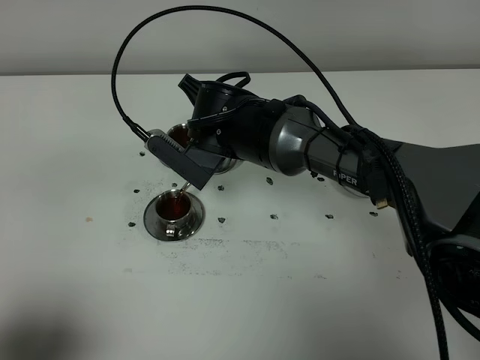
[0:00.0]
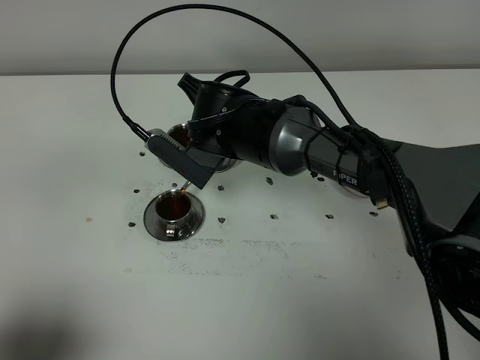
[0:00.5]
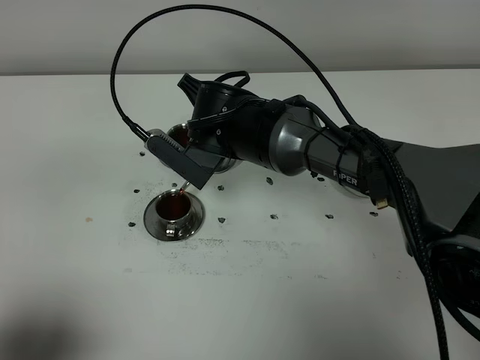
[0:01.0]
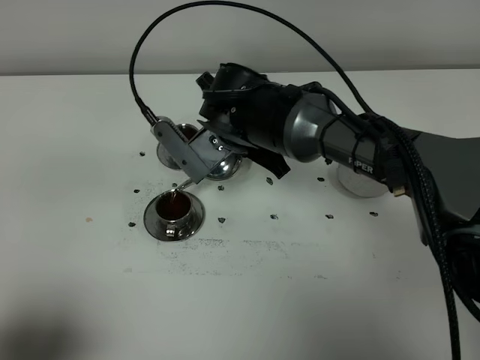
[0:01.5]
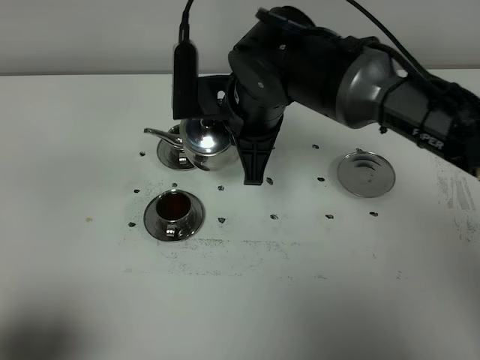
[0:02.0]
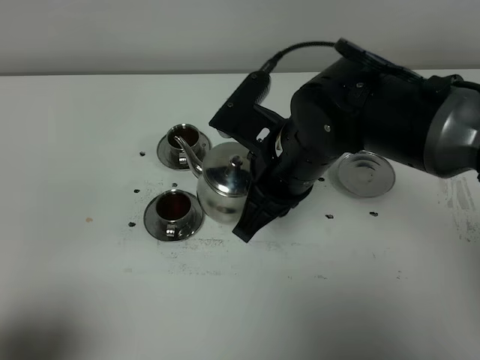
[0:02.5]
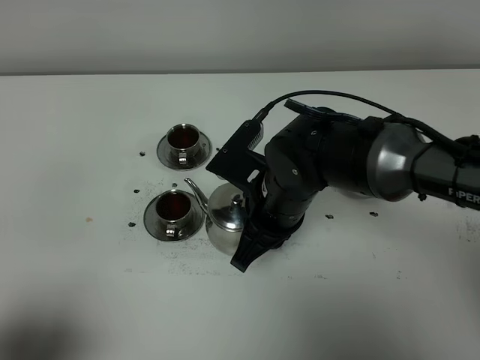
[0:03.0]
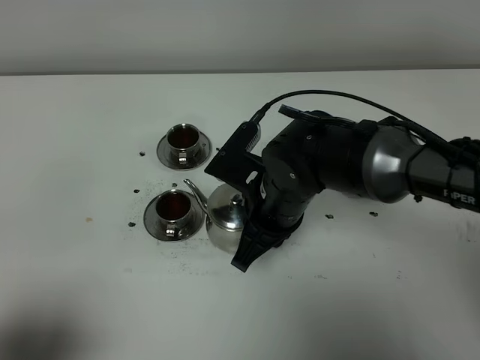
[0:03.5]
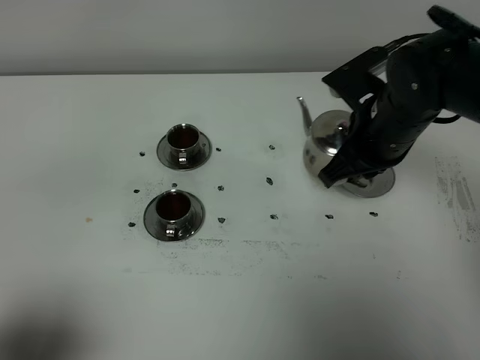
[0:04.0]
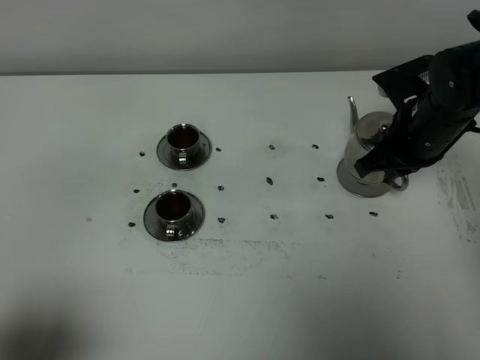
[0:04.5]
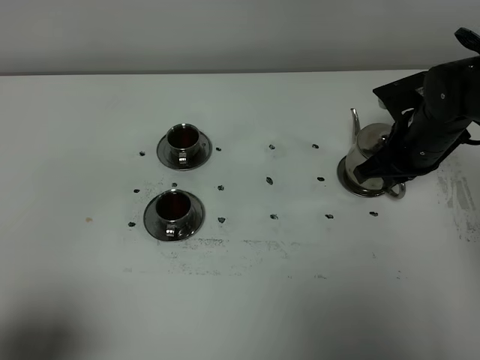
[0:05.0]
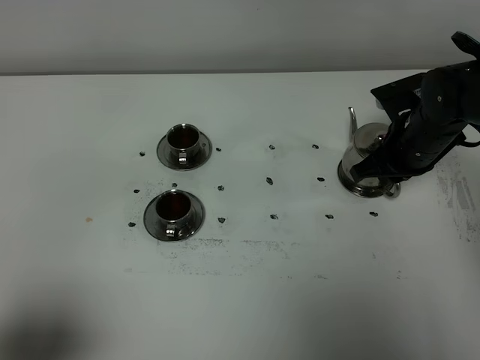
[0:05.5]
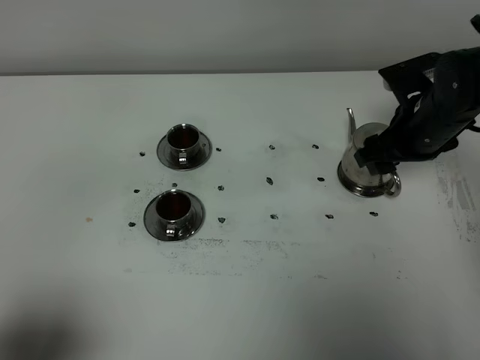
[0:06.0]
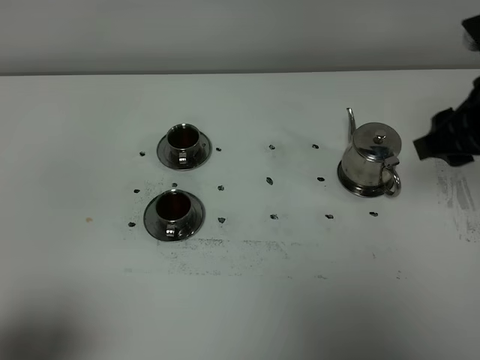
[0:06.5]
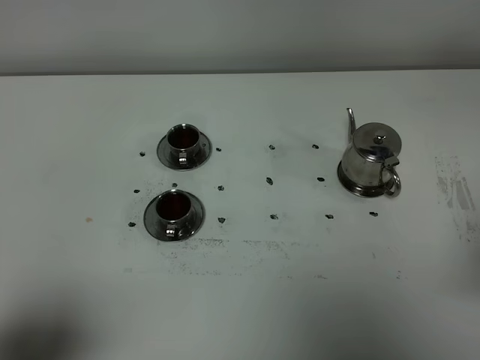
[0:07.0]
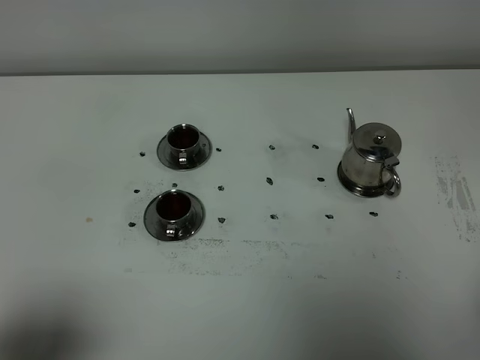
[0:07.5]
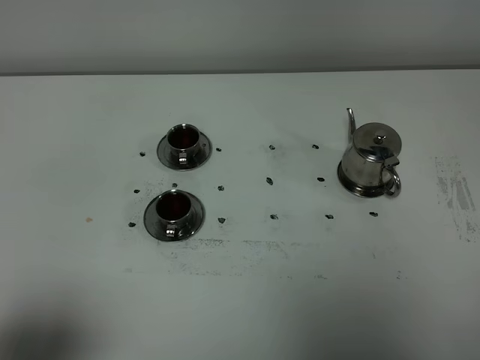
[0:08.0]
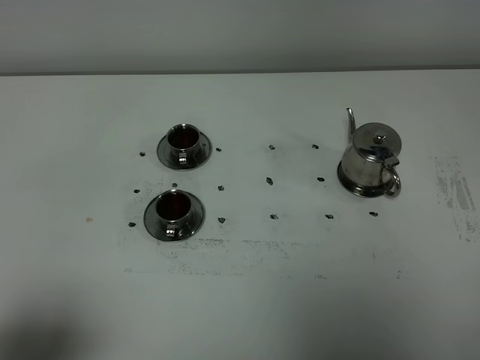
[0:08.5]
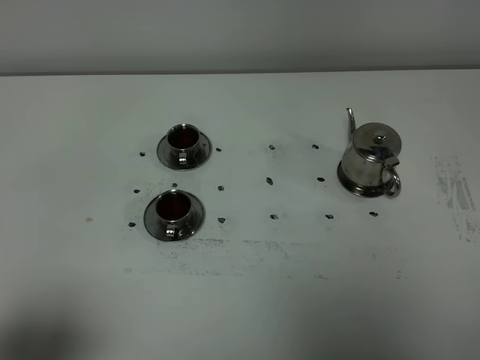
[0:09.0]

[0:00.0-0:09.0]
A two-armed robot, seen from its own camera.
Task of the whole recording: grasp the stainless steel teapot and pour the tea into the two stainless steel teacups one by one, put the stainless steel teapot back in its original place.
0:00.0 to 0:02.0: The right gripper heads upward, covering approximately 5 cm.
0:02.0 to 0:04.5: The right gripper is displaced to the right by approximately 20 cm.
0:04.5 to 0:07.0: The right gripper shifts approximately 30 cm backward and upward, and opens and closes again.

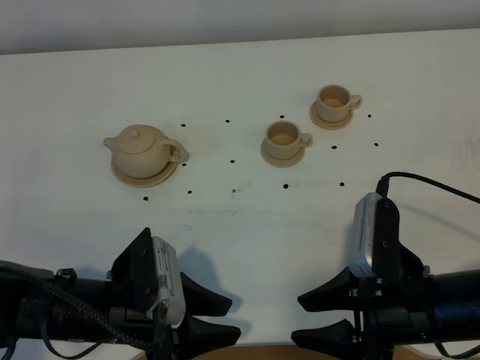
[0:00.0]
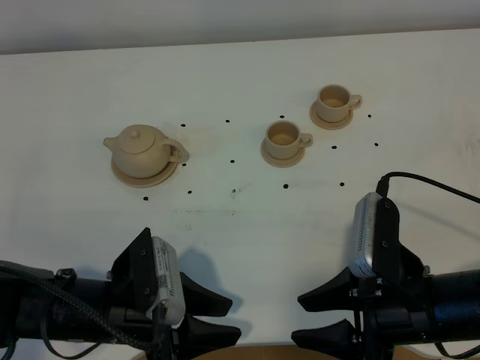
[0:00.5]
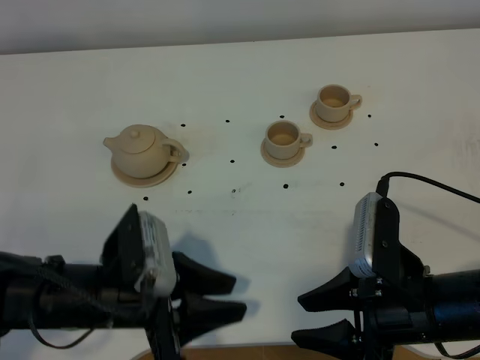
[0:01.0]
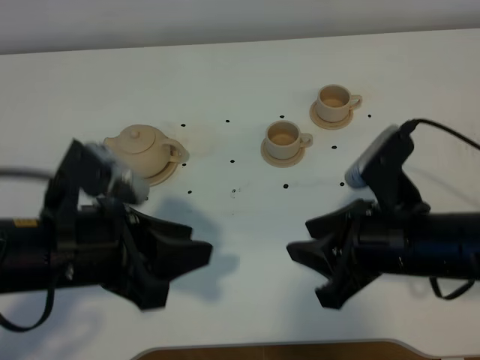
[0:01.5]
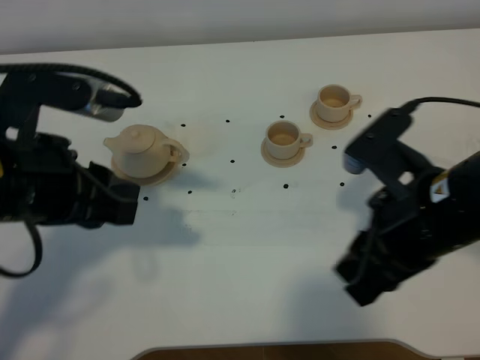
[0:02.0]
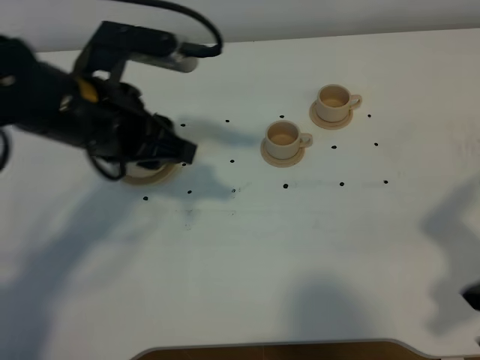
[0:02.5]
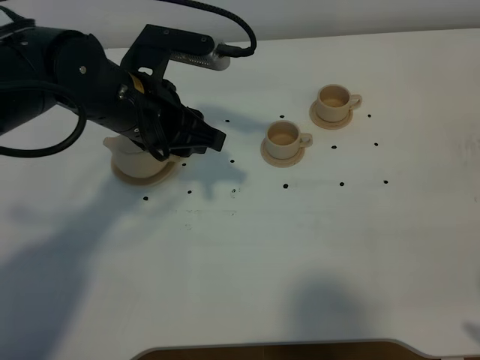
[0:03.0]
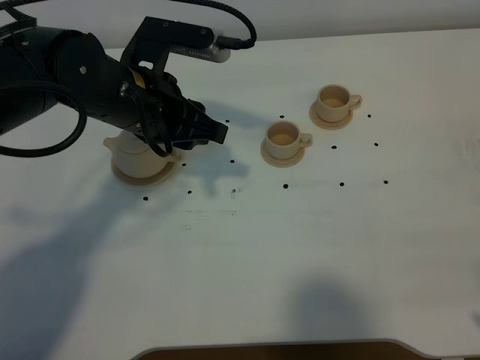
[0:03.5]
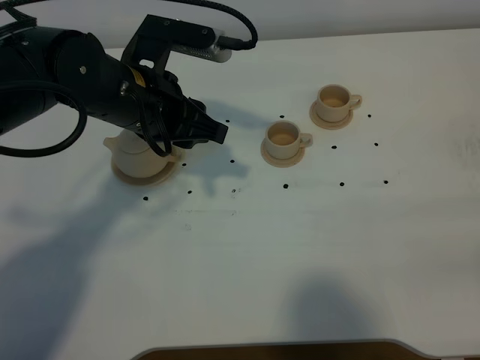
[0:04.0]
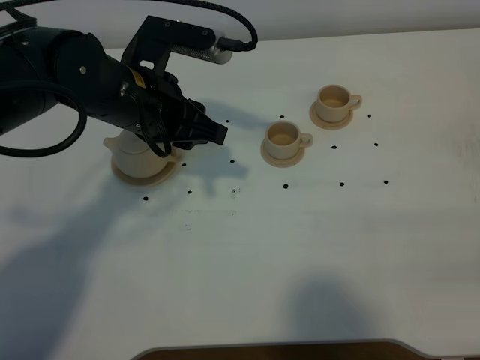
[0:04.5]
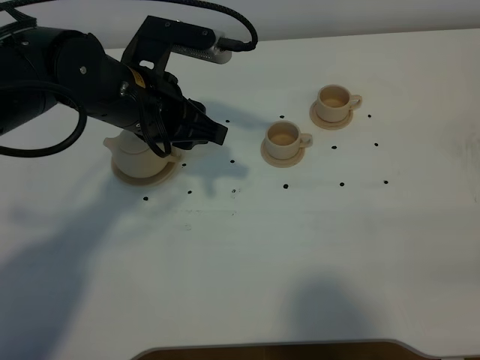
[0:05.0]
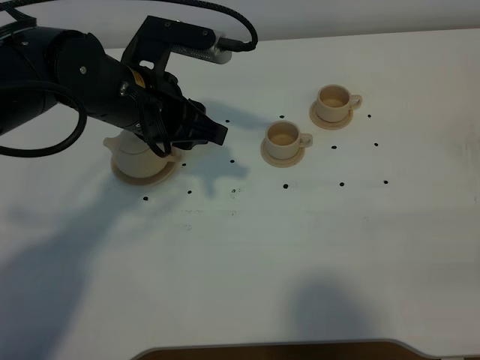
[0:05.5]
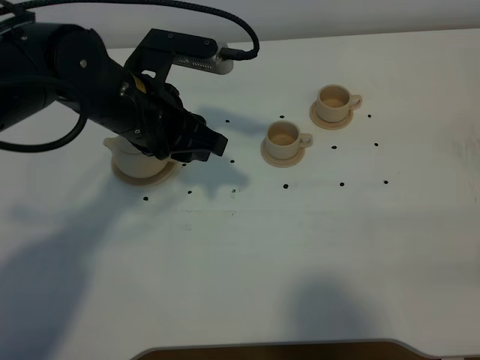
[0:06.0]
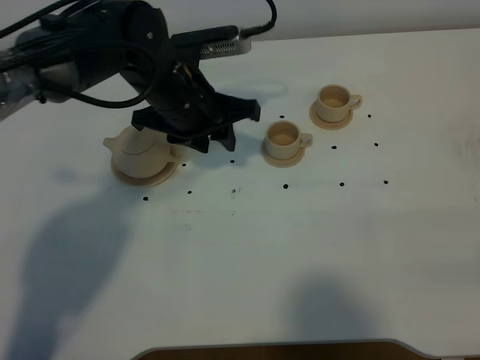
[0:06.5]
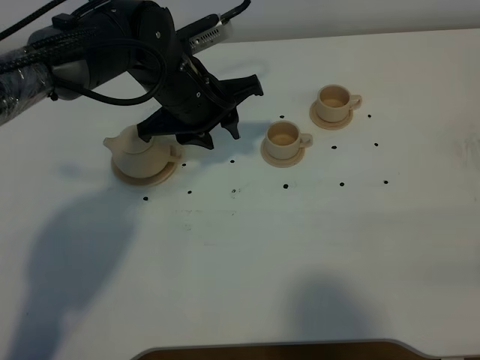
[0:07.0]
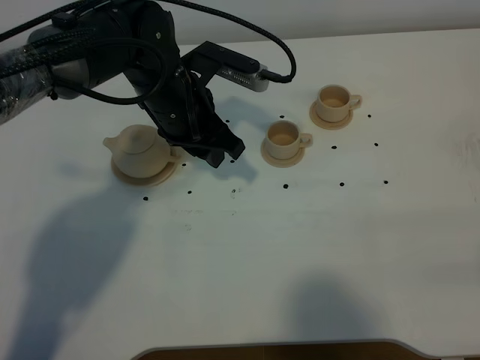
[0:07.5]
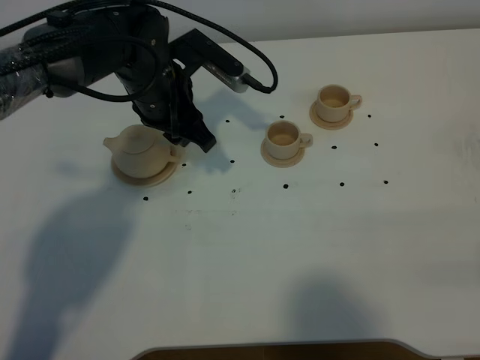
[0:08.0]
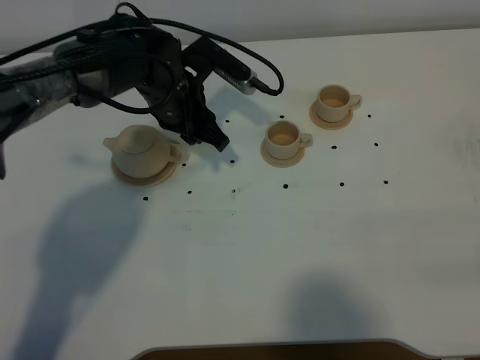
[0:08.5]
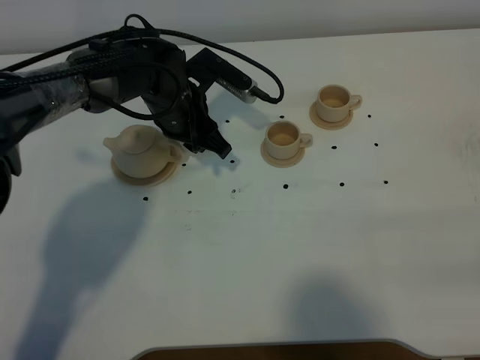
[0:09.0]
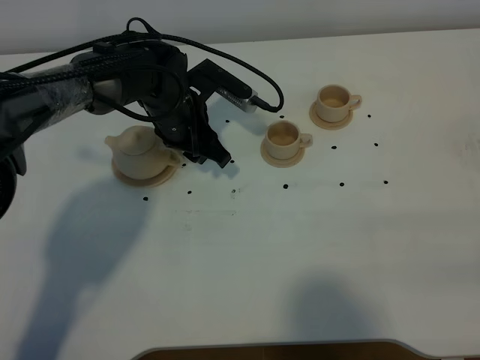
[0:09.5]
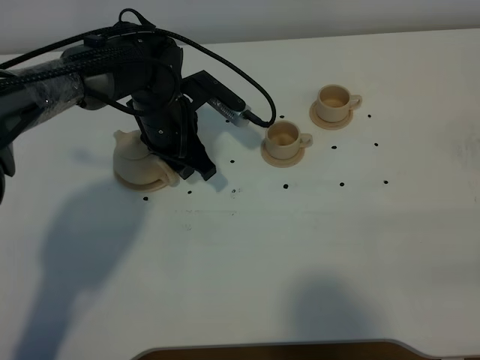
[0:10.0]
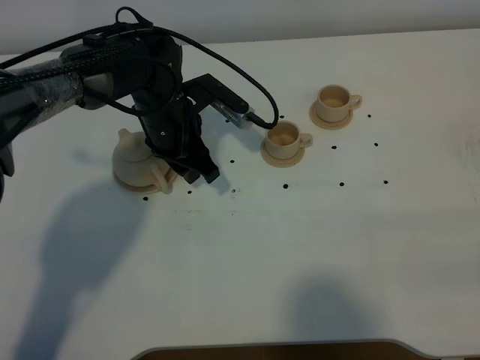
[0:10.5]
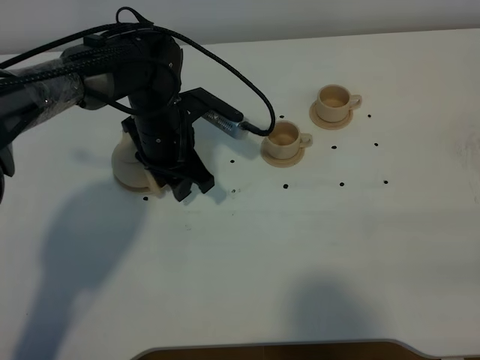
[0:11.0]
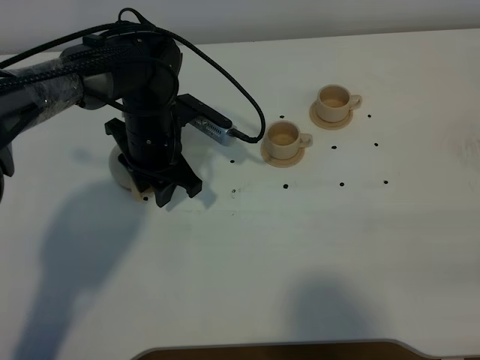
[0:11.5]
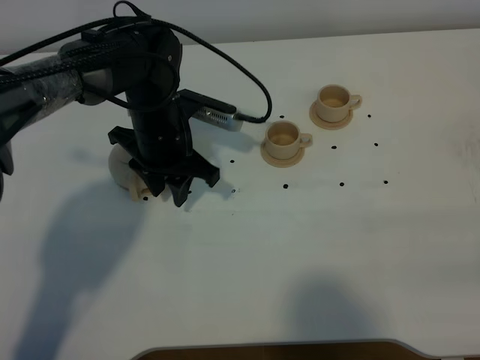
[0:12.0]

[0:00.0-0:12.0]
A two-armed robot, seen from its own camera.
Task of the whole recording: grasp the brown teapot and pour the tea into the two brown teacups one by one, put the brown teapot back in its original place.
0:00.0 to 0:02.0: The left gripper travels upward by approximately 15 cm. The right gripper heads upward and forward, covering approximately 10 cm.
0:02.0 to 0:04.0: The right gripper moves to the right and backward, about 20 cm, while the left gripper travels forward, to the right and downward by approximately 15 cm.
0:04.0 to 0:06.0: There are only small adjustments of the grippers.
0:06.0 to 0:08.0: The left gripper is displaced forward by approximately 5 cm.
0:08.0 to 0:10.0: The left gripper is displaced downward by approximately 5 cm.

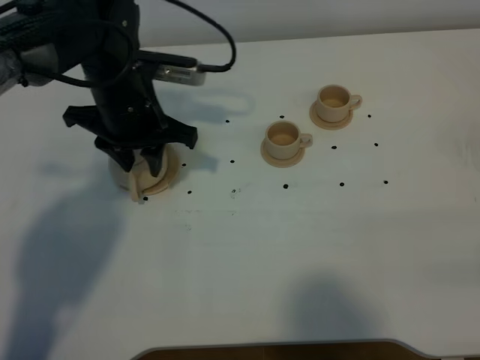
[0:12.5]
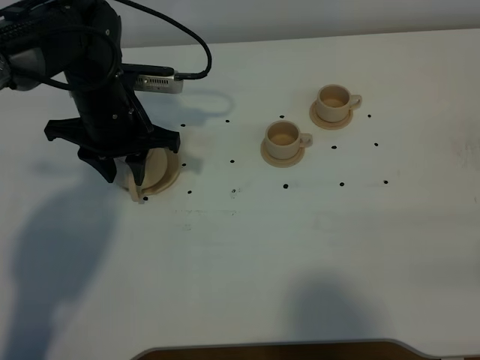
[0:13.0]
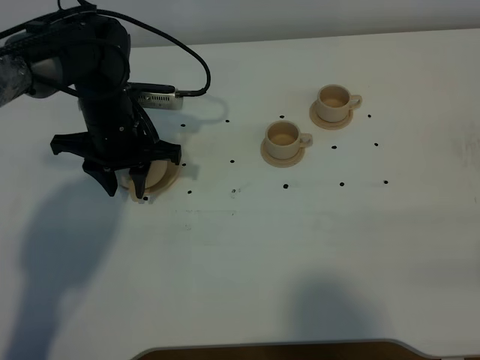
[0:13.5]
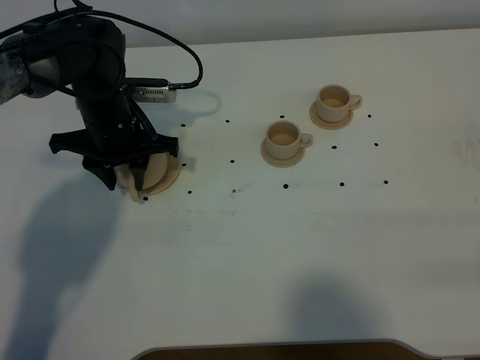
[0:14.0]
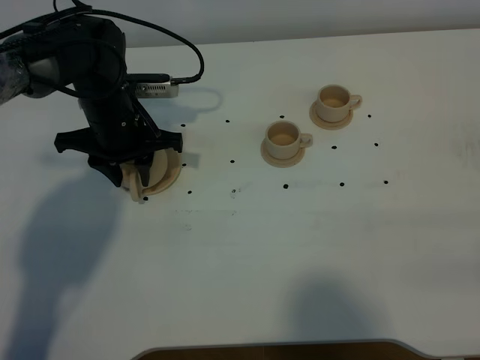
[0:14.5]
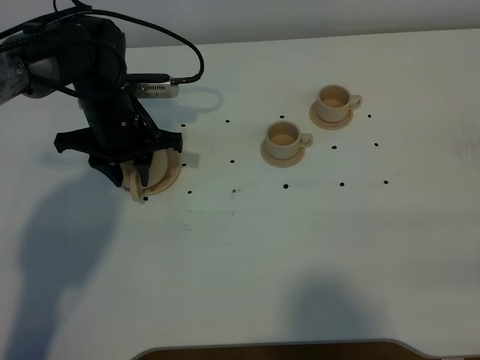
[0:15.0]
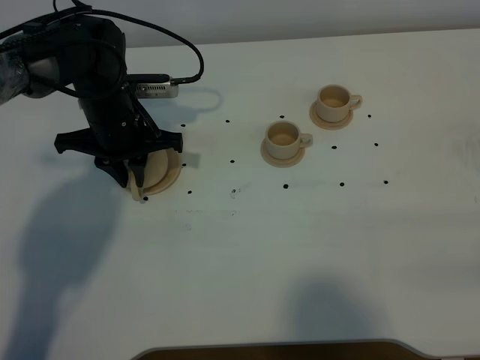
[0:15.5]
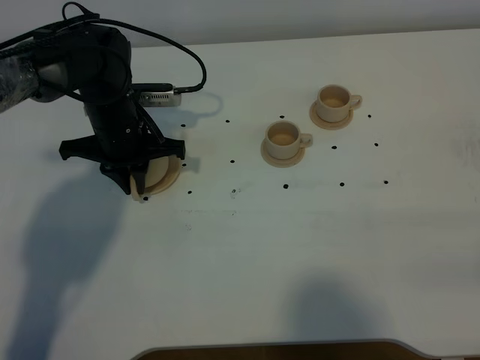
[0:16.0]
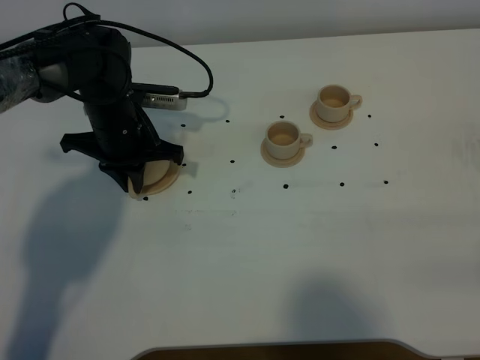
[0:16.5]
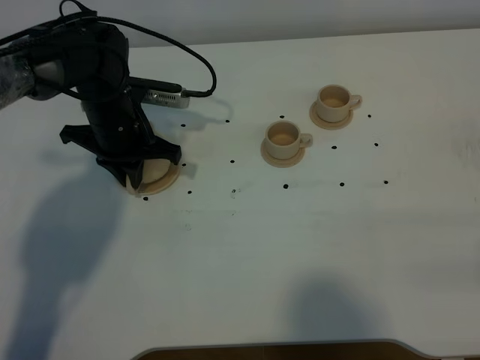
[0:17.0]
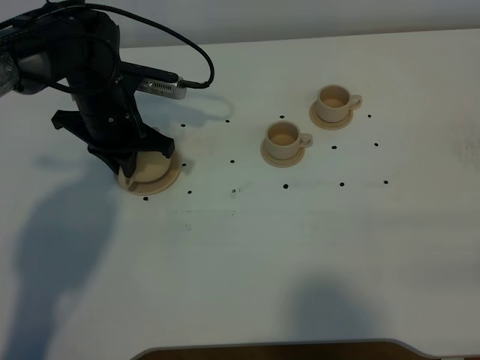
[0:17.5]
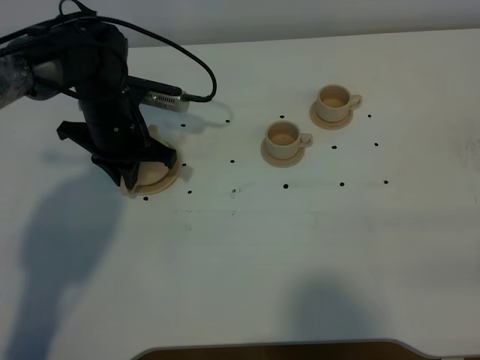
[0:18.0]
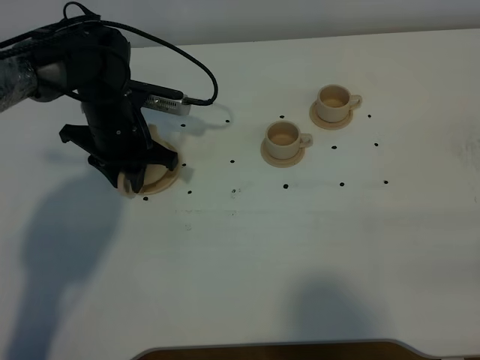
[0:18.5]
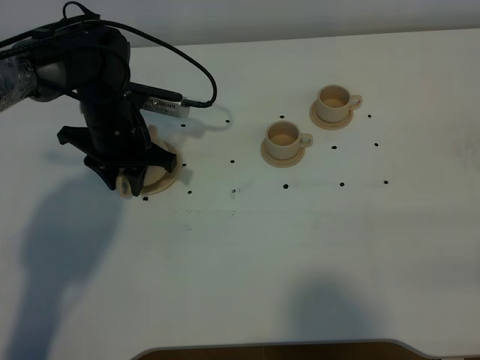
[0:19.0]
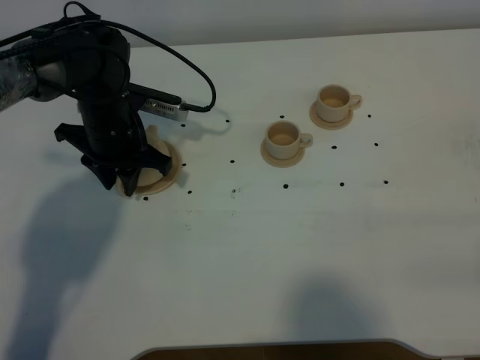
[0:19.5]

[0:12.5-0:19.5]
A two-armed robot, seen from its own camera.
Task of the whole recording: grasp the brown teapot and pour the tea into the two brown teacups one by one, put the brown teapot back in its original place.
0:12.5 to 0:14.5: The left gripper ends up roughly 5 cm from where it was.
0:14.5 to 0:16.0: The left gripper closes.
0:16.0 to 0:17.5: There are only small adjustments of the grippers.
0:17.5 to 0:19.5: The left gripper opens.
